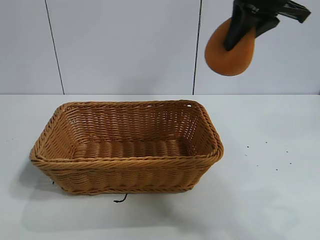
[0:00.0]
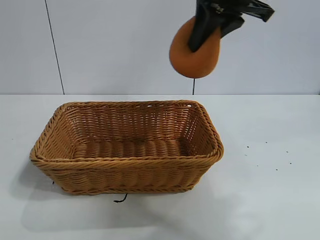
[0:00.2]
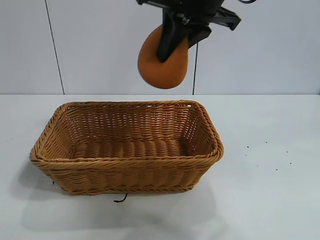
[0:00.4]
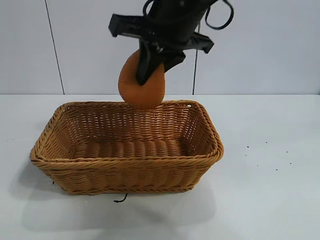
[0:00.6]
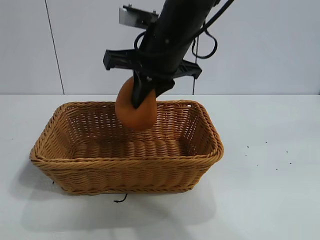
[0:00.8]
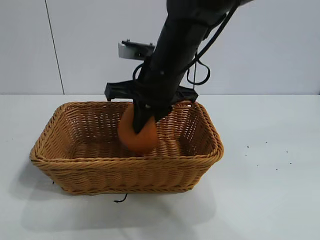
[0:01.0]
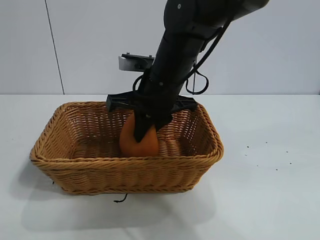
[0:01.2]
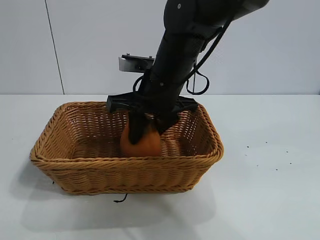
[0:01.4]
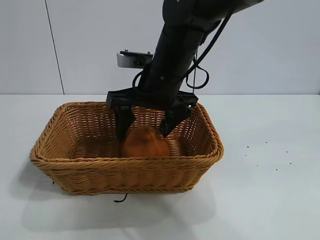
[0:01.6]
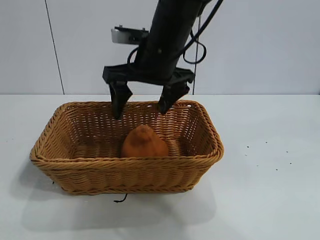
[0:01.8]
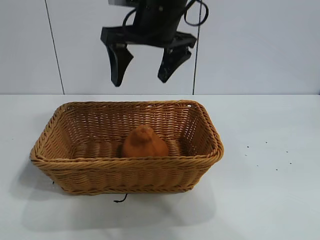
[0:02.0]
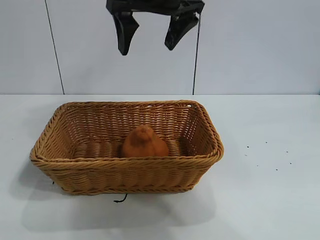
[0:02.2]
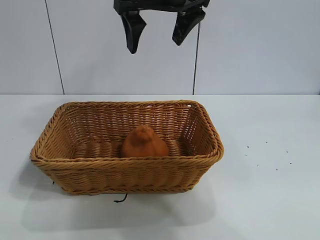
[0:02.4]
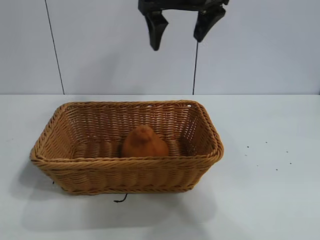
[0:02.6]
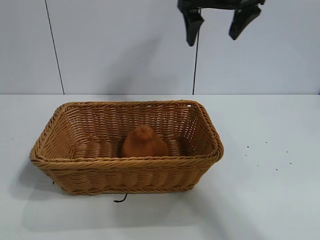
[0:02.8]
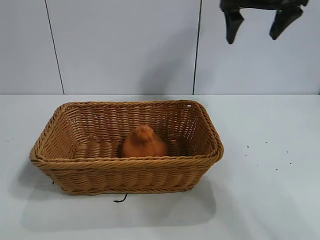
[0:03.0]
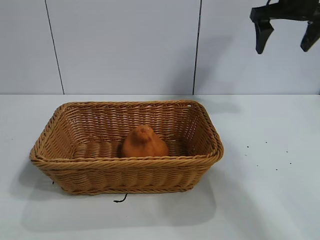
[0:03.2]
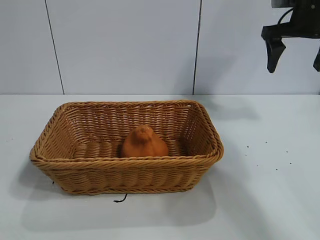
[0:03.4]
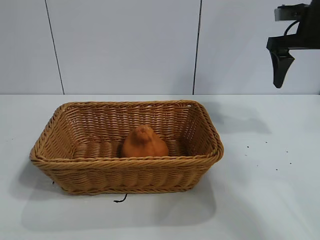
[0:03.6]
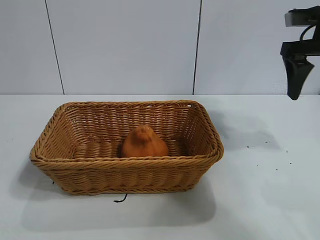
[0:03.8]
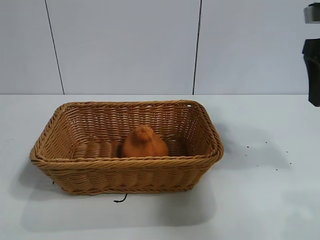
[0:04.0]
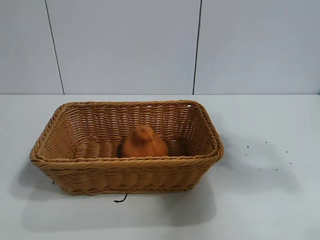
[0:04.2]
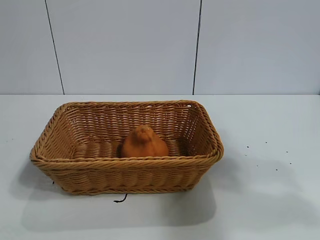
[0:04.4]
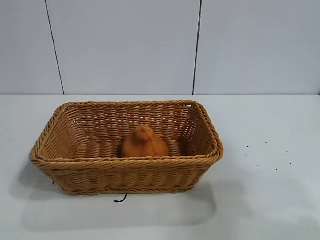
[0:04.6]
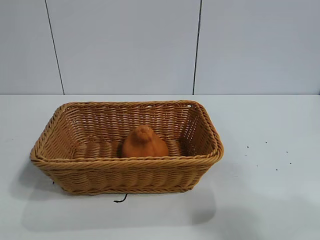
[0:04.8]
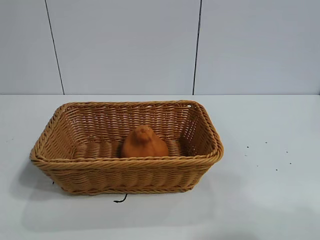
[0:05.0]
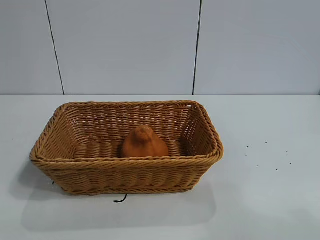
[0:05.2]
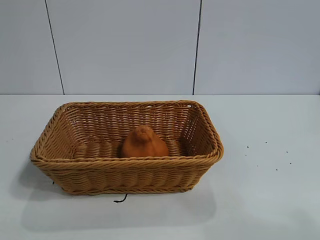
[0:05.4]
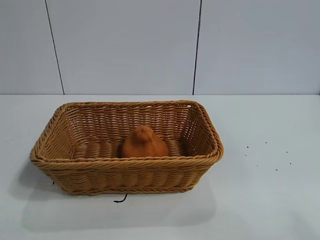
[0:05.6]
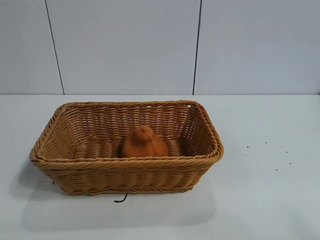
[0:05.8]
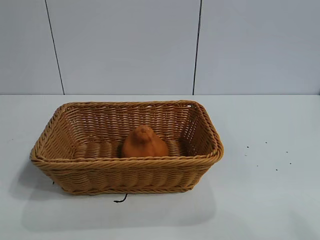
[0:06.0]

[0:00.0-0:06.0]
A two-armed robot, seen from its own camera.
Task of the whole recording: pick up the orange and put it into the basket.
Step, 0:00.0 to 0:01.6: Place the orange in the basket with right gripper.
